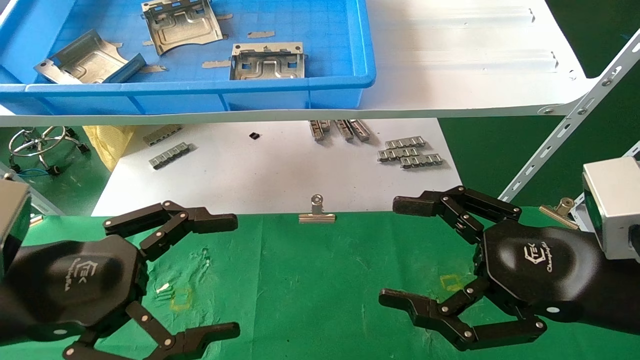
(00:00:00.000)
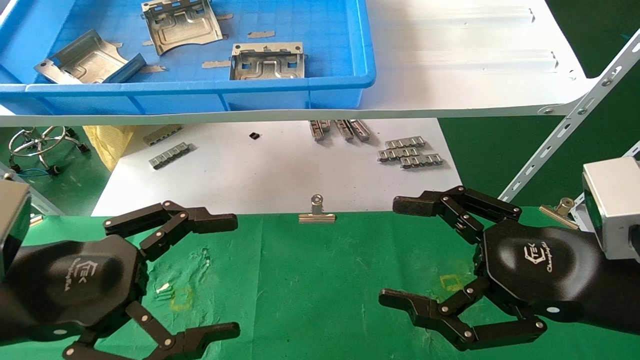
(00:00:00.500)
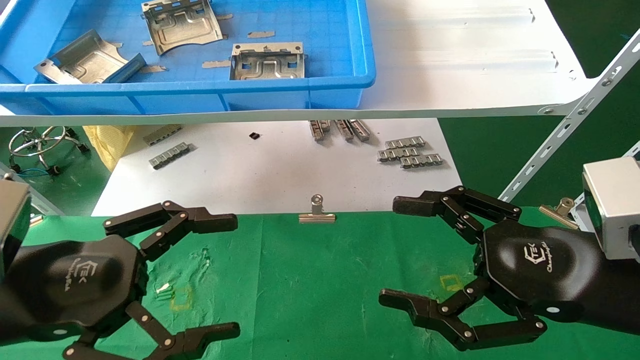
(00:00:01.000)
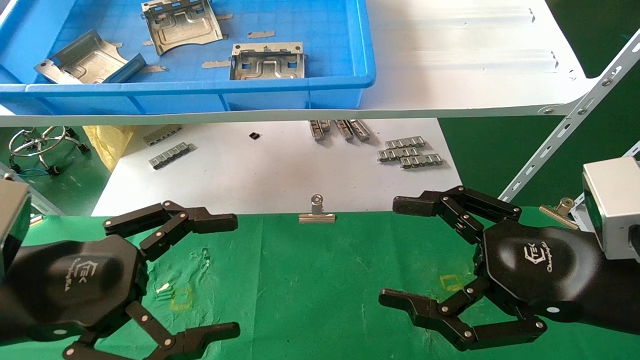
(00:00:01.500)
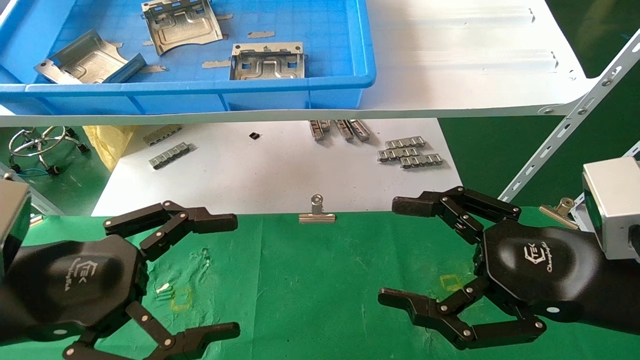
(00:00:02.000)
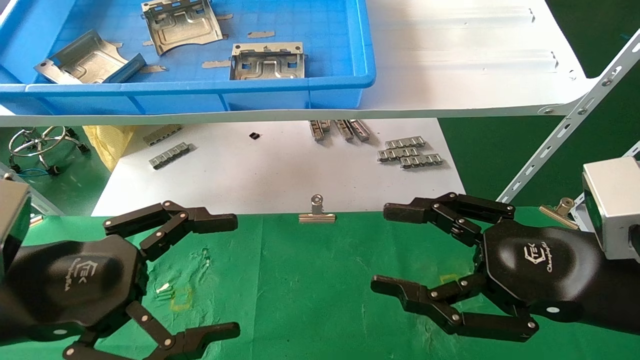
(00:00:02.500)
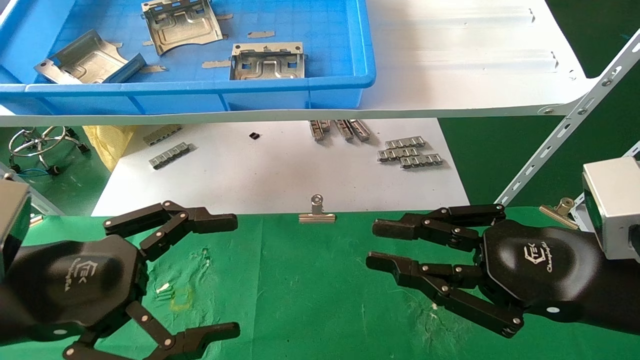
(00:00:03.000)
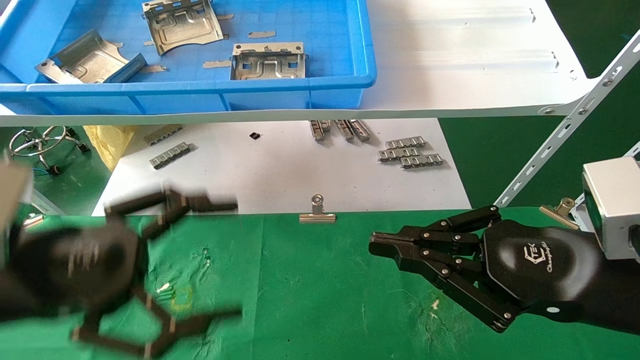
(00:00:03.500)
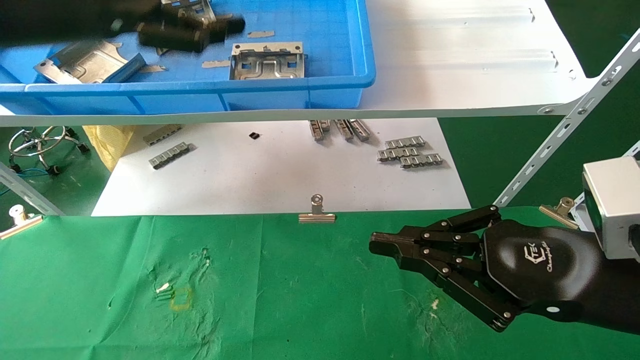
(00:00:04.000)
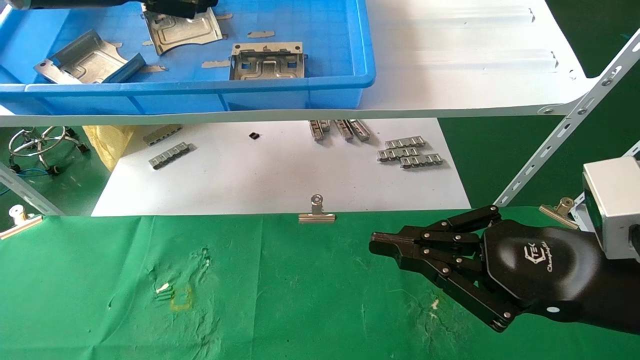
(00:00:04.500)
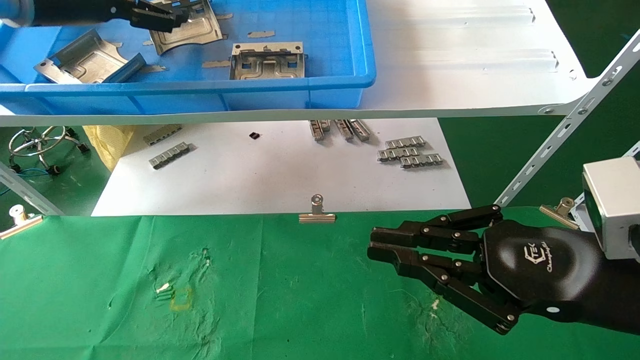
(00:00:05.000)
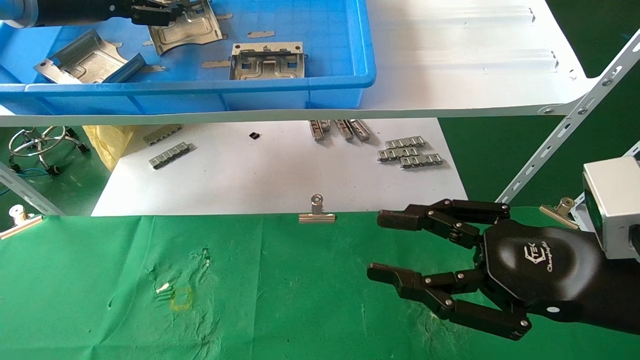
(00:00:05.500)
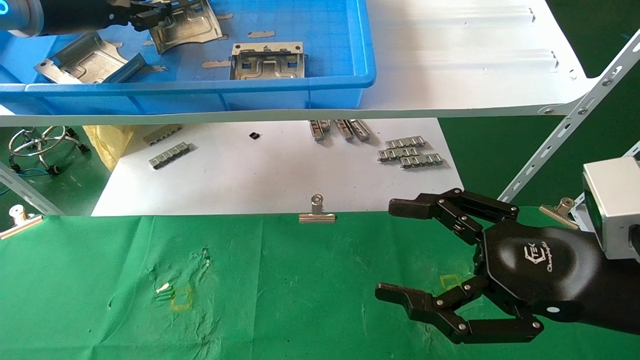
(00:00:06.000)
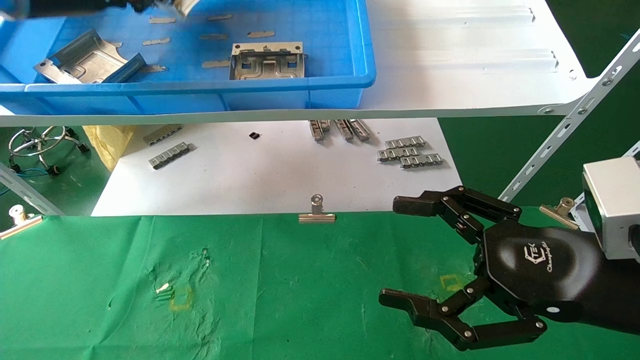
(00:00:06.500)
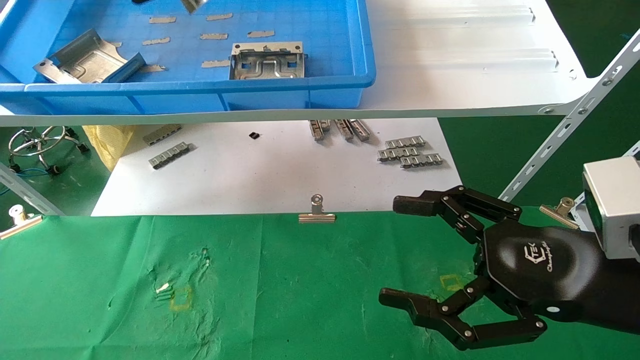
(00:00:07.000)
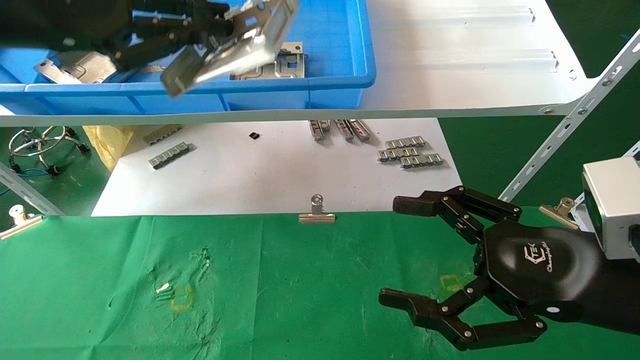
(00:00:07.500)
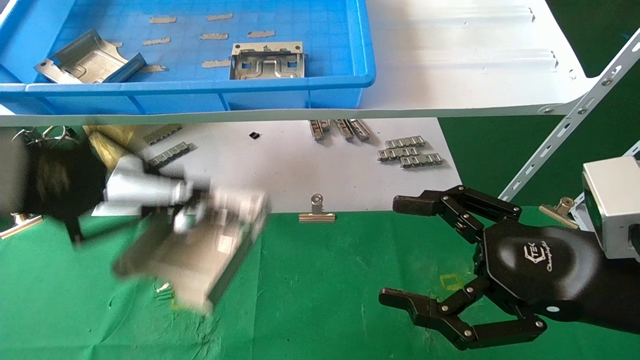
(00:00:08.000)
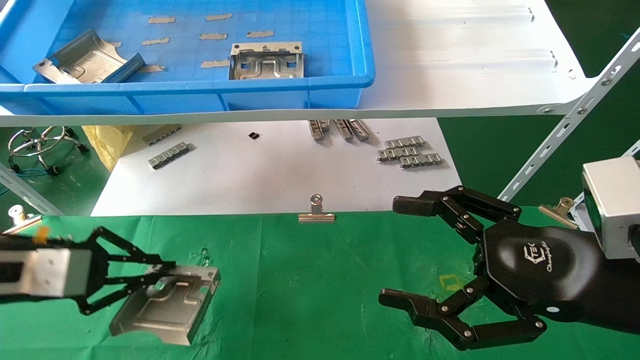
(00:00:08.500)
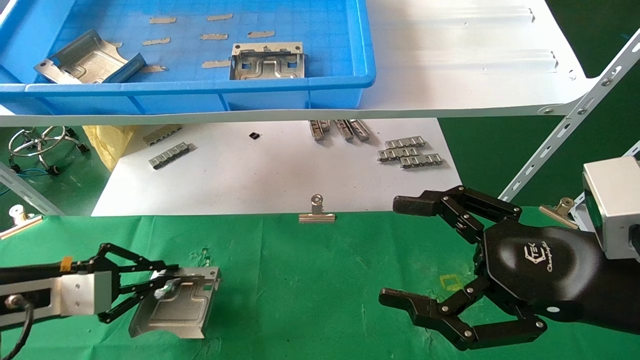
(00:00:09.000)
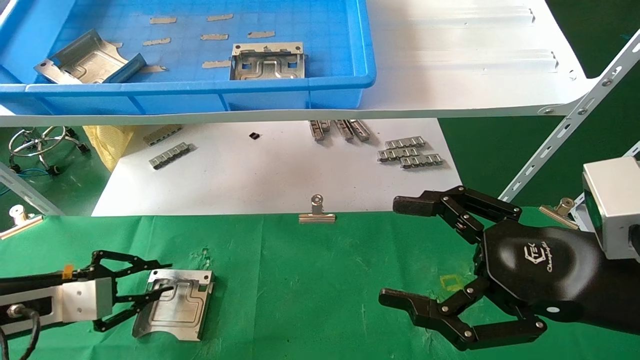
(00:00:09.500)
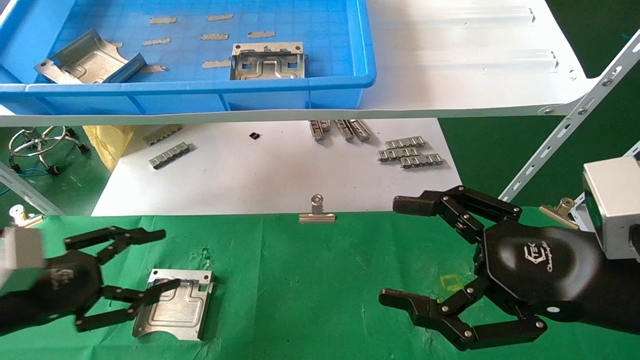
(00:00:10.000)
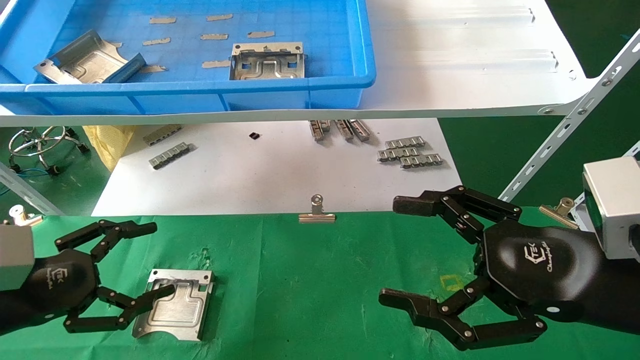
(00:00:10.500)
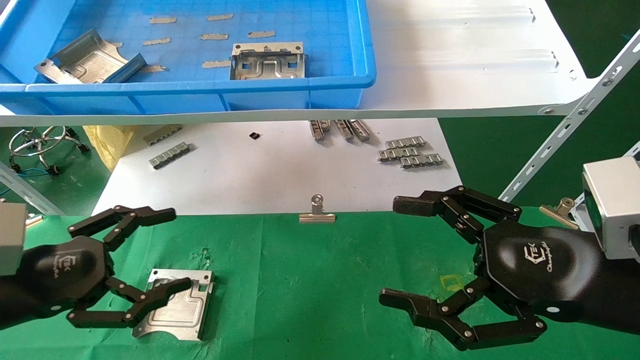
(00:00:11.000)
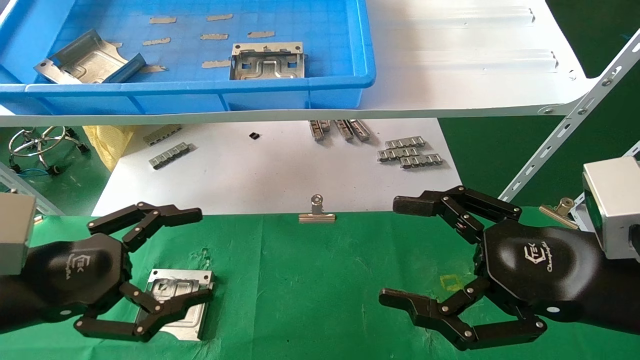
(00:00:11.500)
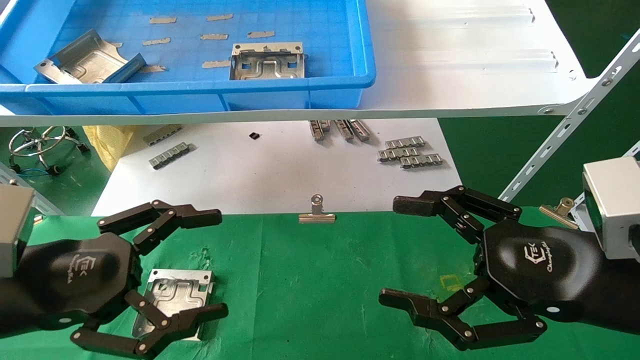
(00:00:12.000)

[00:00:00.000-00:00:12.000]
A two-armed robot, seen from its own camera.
Task of the whole recording: use the mechanical arm to pick up the parts and place them on the table.
Step, 00:00:03.000 to 00:00:06.500: Pick up the hard drive bracket from the feeding area.
Step, 00:00:07.000 to 00:00:10.500: Place the hard drive bracket into the box.
00:00:00.000 to 00:00:02.000: Both grippers stay put.
00:00:02.000 to 00:00:04.000: The left gripper goes approximately 25 cm upward and forward. The right gripper closes.
00:00:04.000 to 00:00:06.000: The left gripper goes approximately 10 cm forward, and closes. Meanwhile the right gripper opens its fingers.
00:00:06.000 to 00:00:08.000: The left gripper heads backward and downward, covering roughly 20 cm, and closes.
00:00:08.000 to 00:00:10.000: The left gripper goes approximately 15 cm downward, and opens.
00:00:10.000 to 00:00:12.000: The left gripper travels to the right and upward by about 10 cm, and opens.
